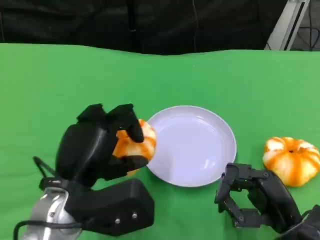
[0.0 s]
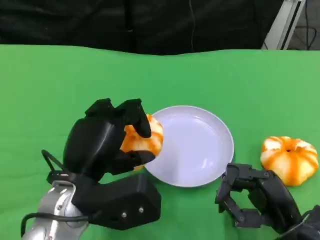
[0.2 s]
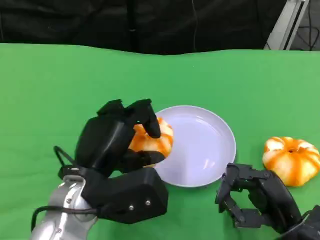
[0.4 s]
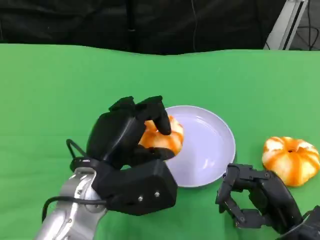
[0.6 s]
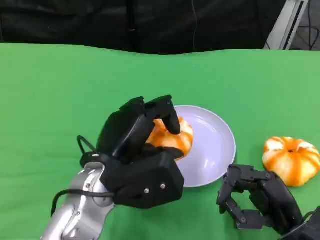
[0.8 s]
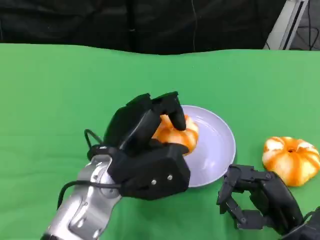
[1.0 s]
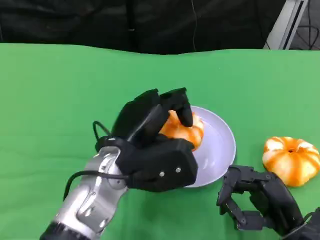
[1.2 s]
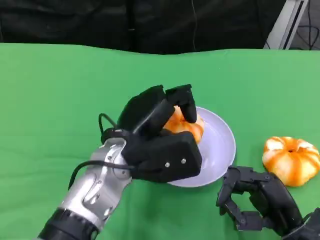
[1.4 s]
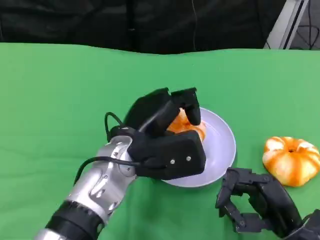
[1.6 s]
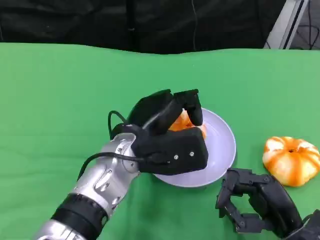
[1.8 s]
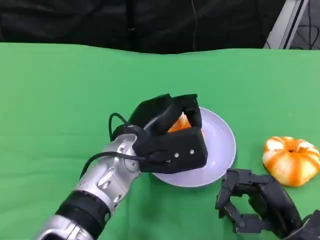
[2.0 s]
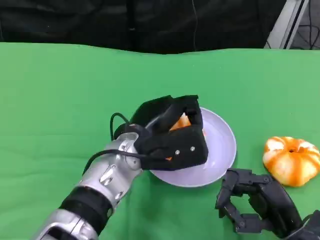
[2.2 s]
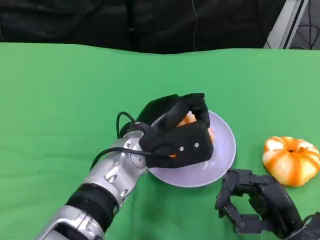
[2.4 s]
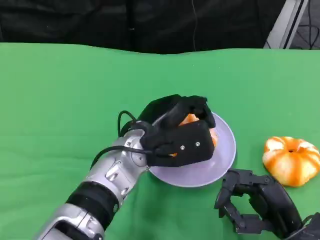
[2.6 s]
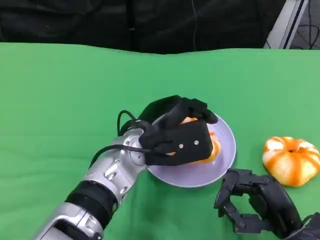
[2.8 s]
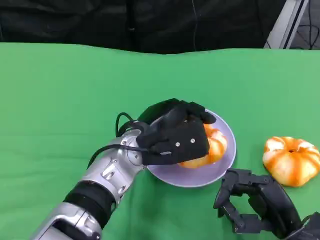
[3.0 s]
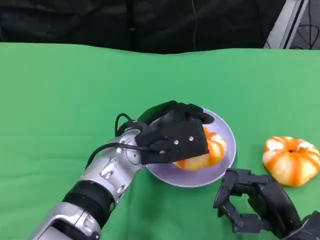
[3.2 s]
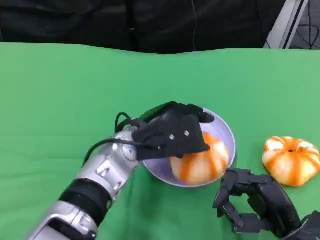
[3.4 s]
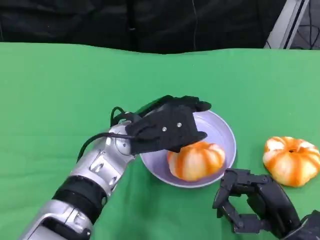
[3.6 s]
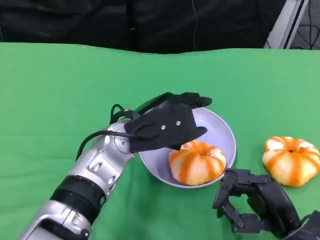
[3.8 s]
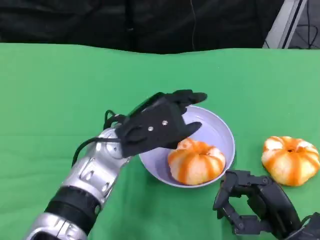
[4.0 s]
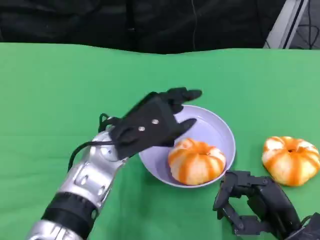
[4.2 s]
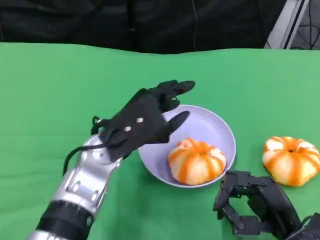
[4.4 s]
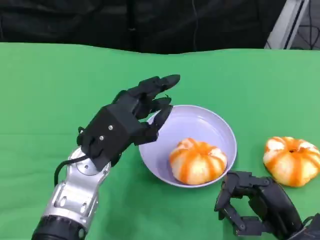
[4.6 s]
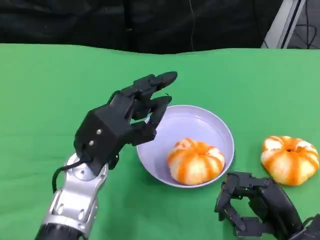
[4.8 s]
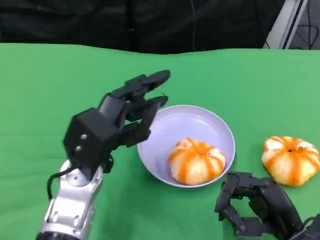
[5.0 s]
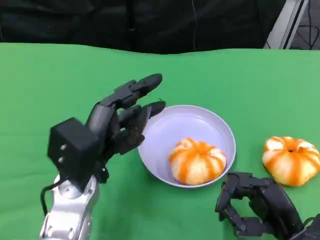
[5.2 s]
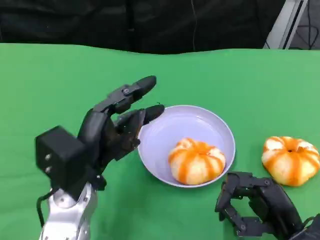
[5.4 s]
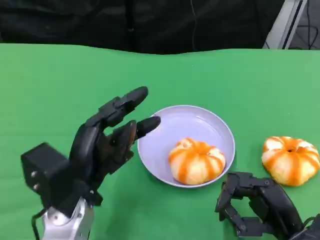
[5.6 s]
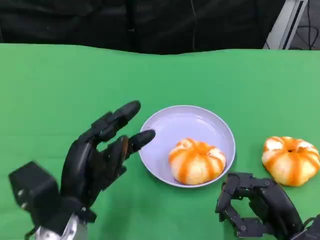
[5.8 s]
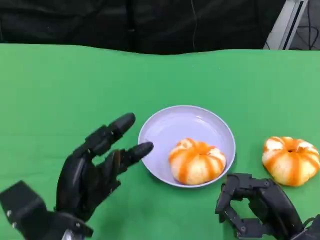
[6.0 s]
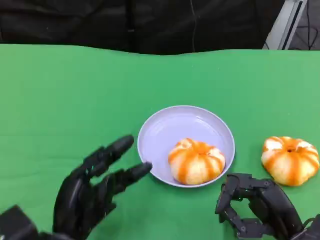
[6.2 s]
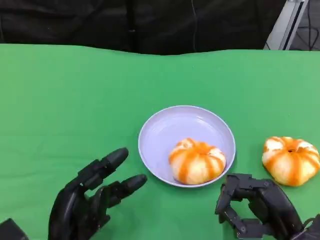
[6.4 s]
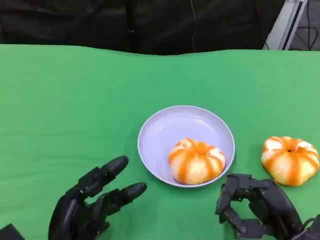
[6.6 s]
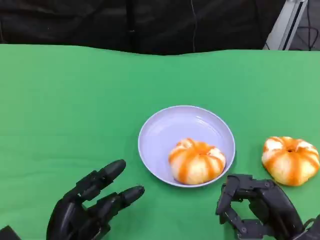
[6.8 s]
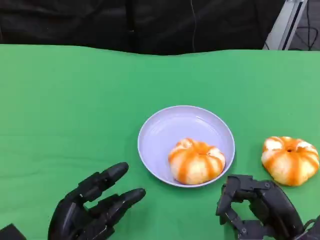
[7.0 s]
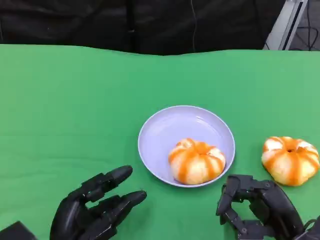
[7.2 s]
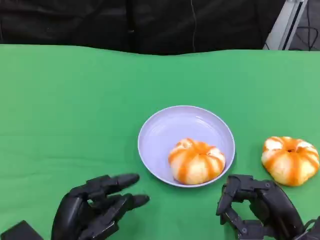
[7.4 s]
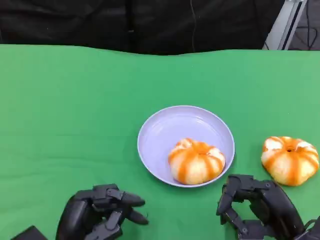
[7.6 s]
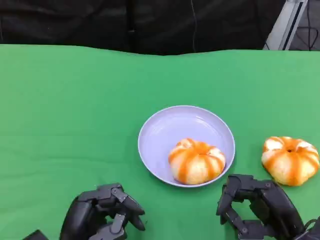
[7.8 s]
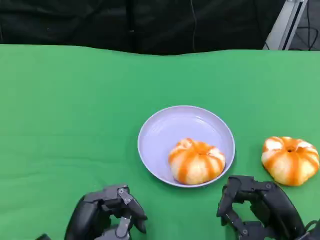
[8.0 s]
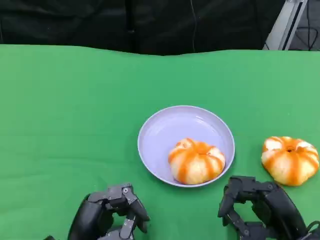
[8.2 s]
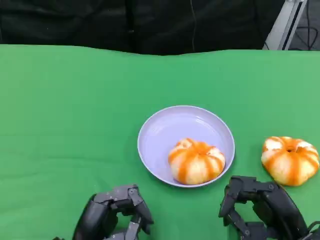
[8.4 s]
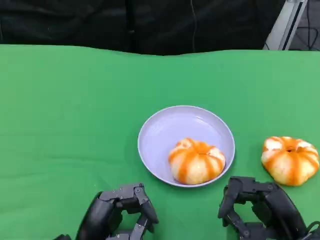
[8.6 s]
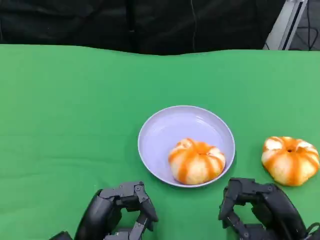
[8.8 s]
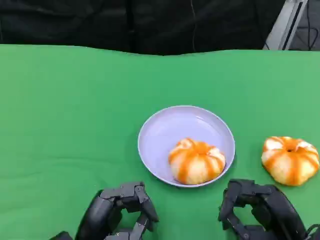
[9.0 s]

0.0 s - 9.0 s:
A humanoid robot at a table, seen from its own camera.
Task of the whole recording: Grasp the bread from the table and place it into the plate.
0.0 s - 1.6 s: The left hand shifts roughly 10 cm to the right and forward.
1.6 s - 3.0 s: The hands stay close to where they were, moving slightly.
4.4 s - 6.0 s: The left hand shifts approximately 15 cm backward, downward and to the left.
6.0 s - 7.6 s: The left hand ends up some 5 cm from where it was.
7.6 s - 9.0 s: The hands make only small movements.

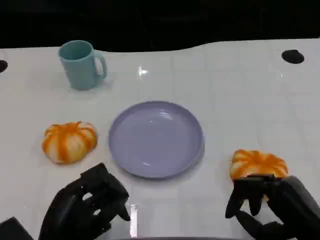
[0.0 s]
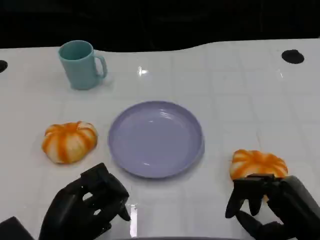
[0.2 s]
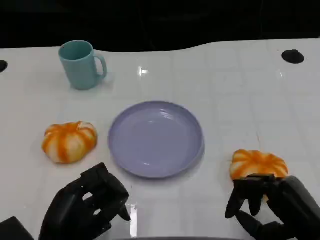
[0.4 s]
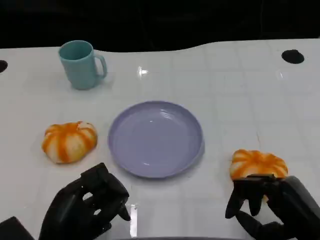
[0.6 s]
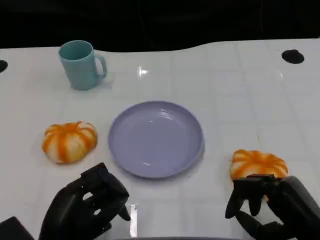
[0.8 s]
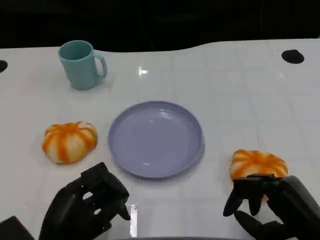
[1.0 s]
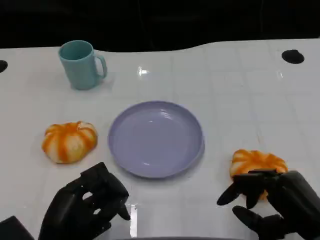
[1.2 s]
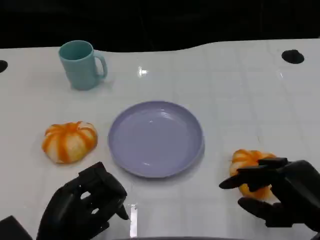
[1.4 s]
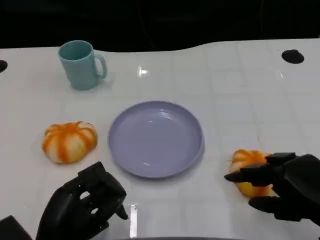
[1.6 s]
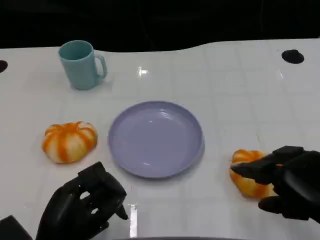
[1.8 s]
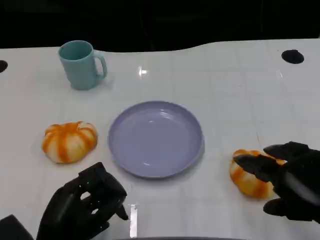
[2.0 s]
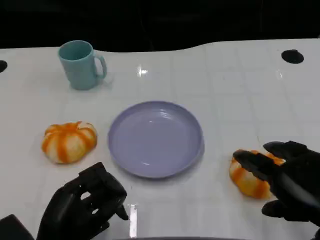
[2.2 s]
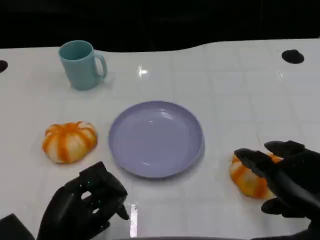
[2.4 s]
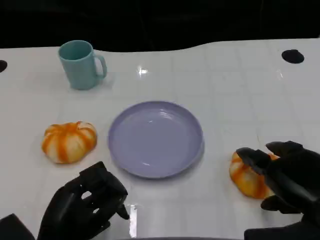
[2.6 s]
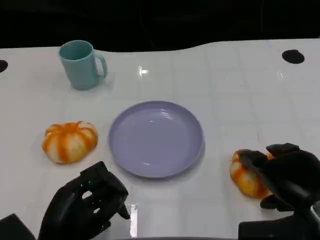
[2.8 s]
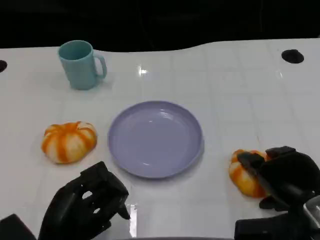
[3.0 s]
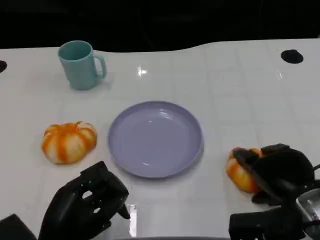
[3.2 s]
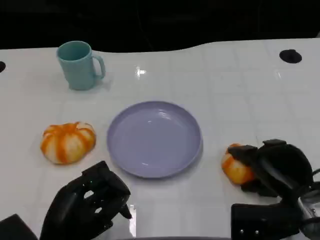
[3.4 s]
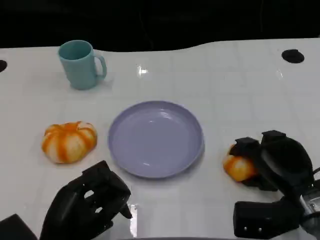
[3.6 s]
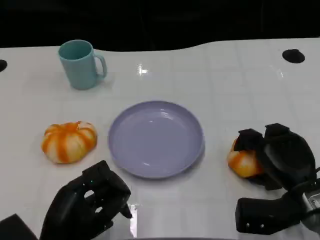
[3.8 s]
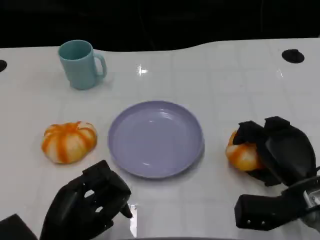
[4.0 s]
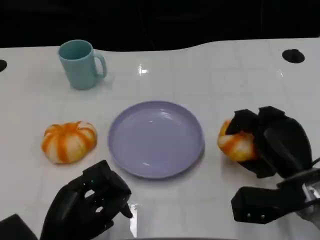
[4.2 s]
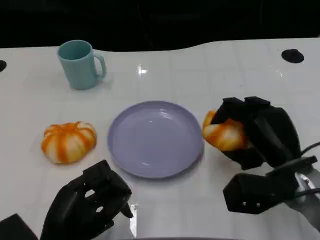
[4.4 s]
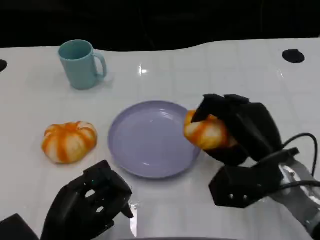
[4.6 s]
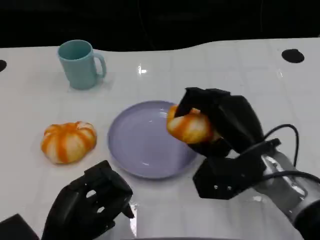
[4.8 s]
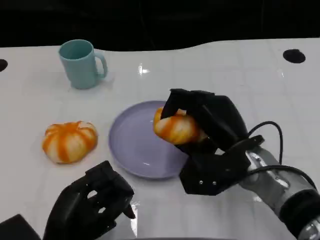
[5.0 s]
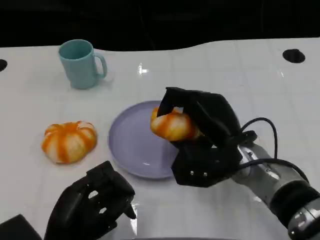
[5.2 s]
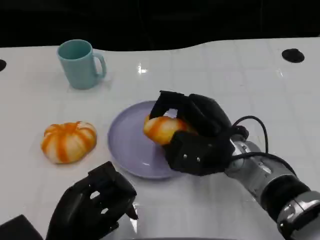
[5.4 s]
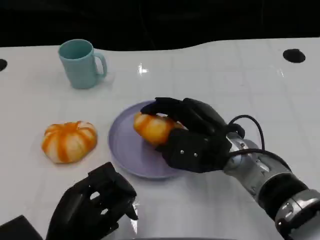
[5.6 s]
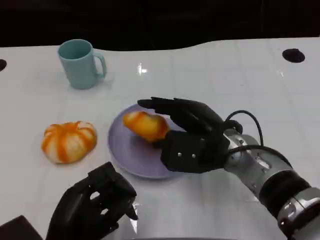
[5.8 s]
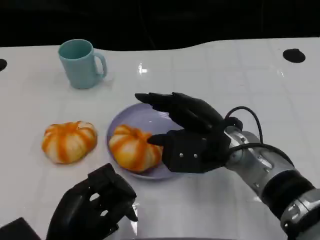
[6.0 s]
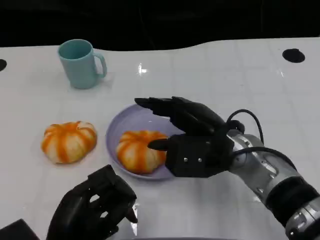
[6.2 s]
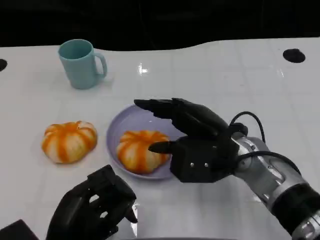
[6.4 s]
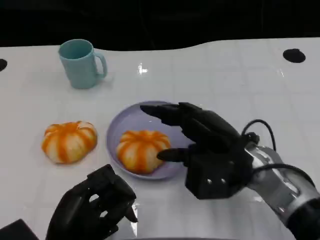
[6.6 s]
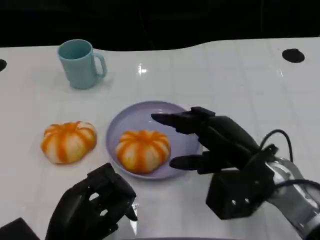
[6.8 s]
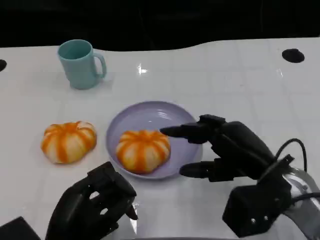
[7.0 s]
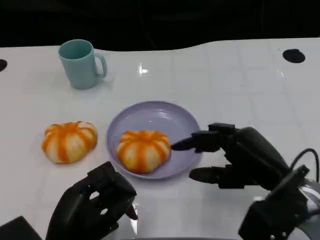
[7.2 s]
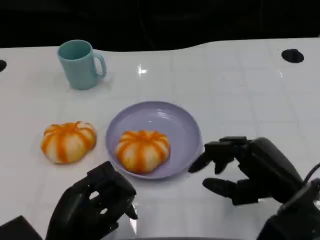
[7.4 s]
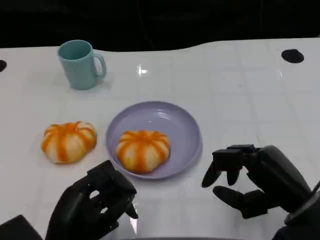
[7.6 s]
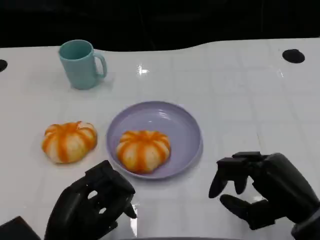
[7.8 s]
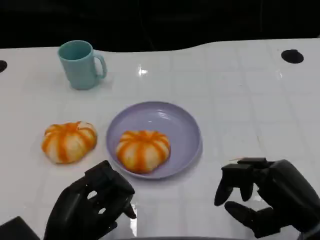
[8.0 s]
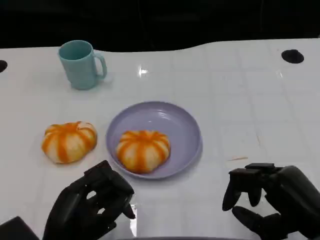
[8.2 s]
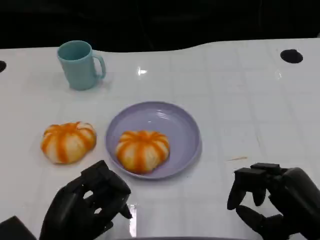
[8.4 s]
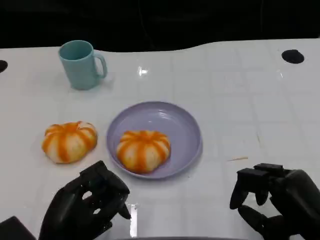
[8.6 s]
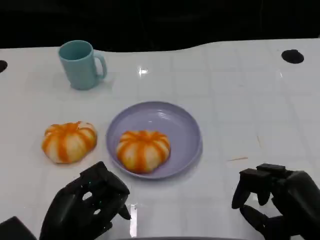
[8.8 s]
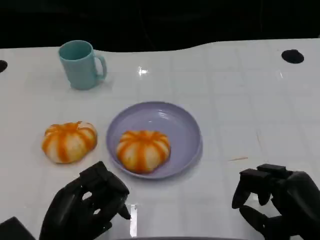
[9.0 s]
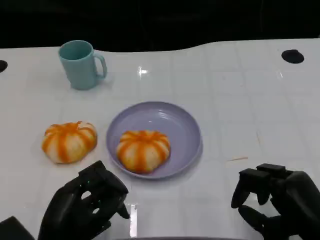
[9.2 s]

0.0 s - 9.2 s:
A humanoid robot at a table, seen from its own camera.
Task of the whole recording: Grasp the bread from the table and place it into the plate.
0.0 s - 1.6 s: The right hand moves upward, approximately 5 cm.
1.6 s - 3.0 s: The right hand shifts by approximately 5 cm.
3.0 s - 4.6 s: The right hand shifts approximately 10 cm to the left and forward.
4.6 s - 6.2 s: The right hand goes roughly 5 cm to the left.
6.2 s - 7.6 s: The right hand goes about 15 cm to the right and backward.
7.6 s - 9.2 s: The hands stay close to where they were, moving slightly.

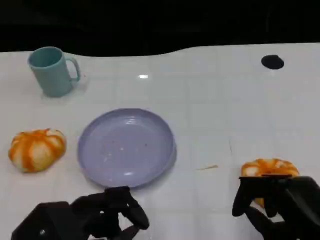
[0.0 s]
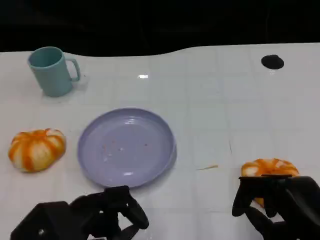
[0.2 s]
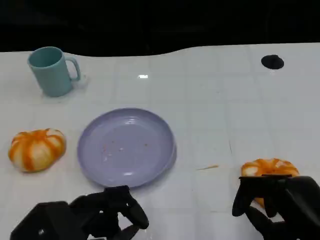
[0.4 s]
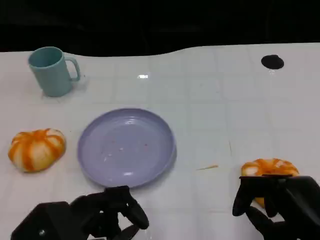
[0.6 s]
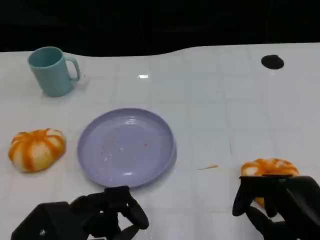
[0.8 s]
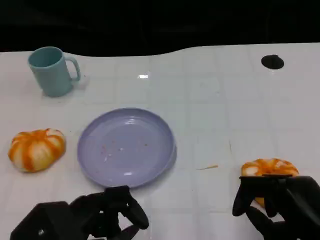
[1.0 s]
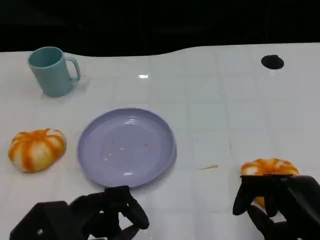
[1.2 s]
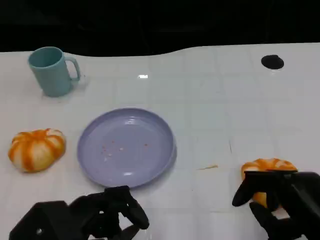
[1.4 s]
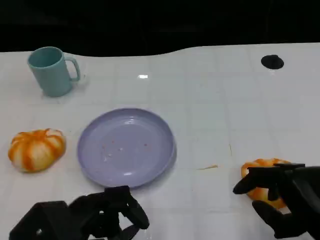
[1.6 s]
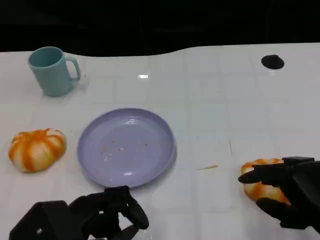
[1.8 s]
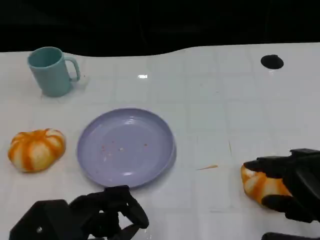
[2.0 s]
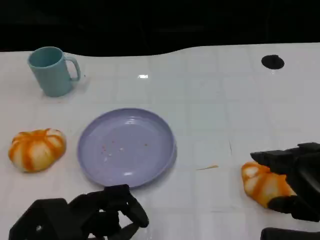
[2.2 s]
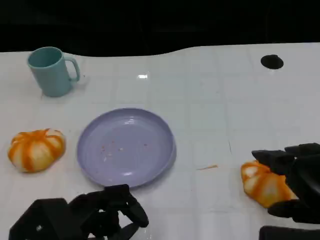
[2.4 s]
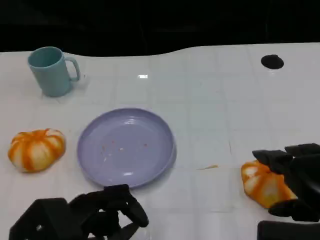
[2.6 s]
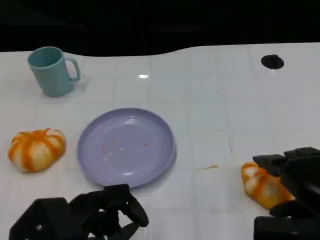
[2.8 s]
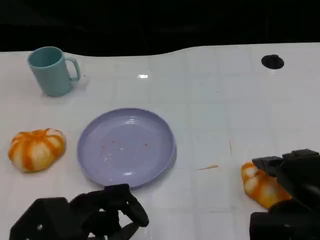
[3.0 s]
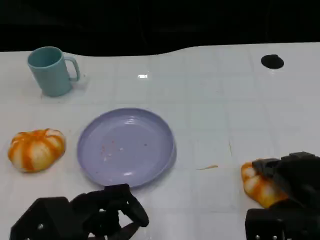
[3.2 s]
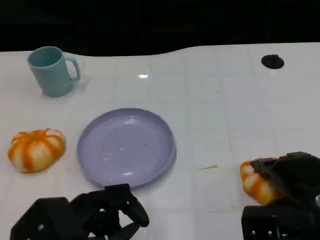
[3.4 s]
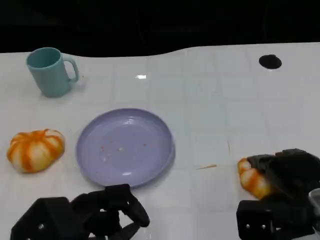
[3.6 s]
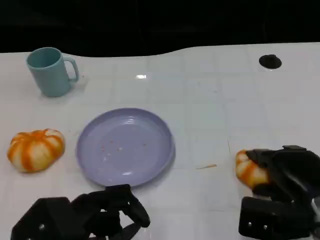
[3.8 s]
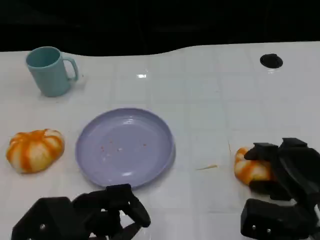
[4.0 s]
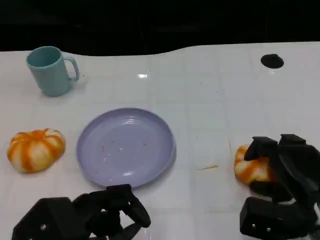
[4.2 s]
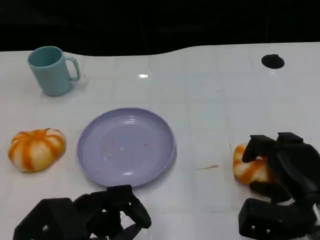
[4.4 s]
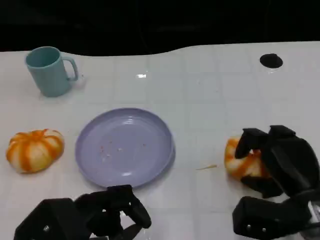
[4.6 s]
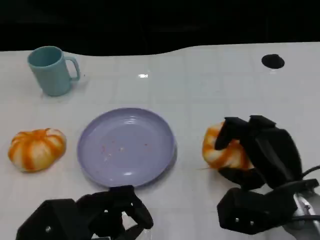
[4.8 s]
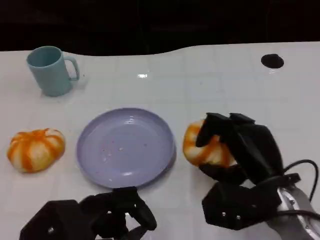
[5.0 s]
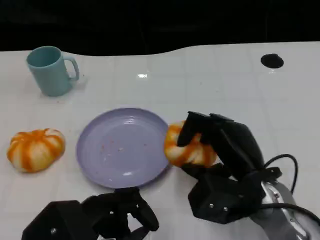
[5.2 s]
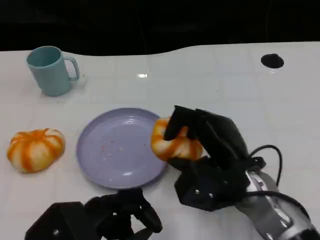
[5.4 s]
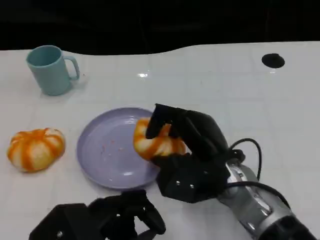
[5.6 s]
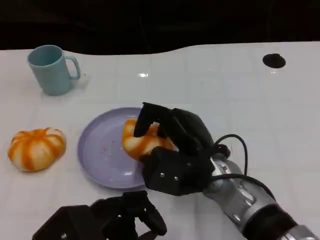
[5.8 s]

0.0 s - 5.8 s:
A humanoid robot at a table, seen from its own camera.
Task of the whole recording: Grasp the bread from the table and place it into the plate.
0.0 s - 1.4 s: Neither hand changes place.
2.8 s - 4.4 s: The right hand moves downward, about 10 cm.
4.4 s - 5.8 s: The right hand heads to the left, covering some 15 cm.
